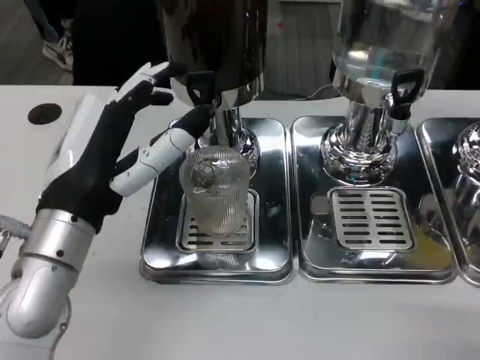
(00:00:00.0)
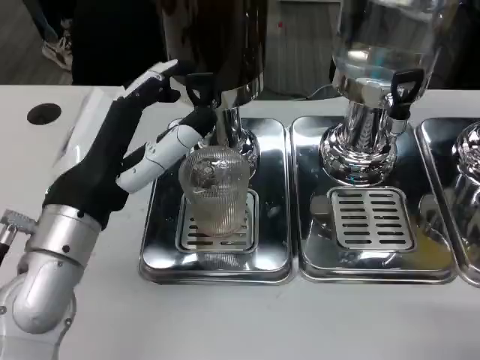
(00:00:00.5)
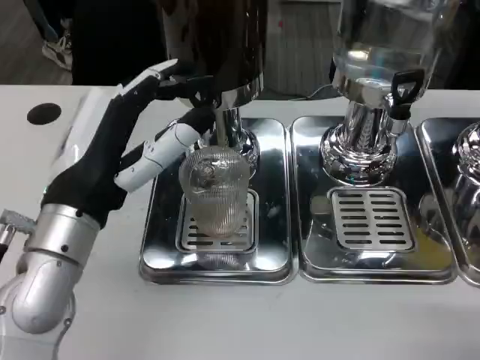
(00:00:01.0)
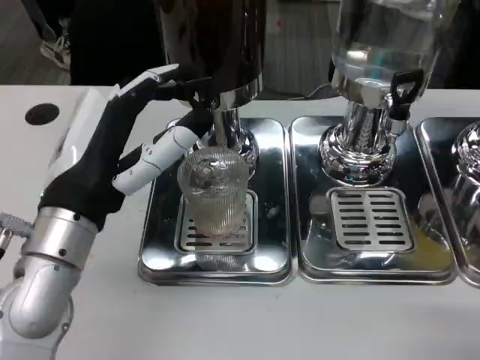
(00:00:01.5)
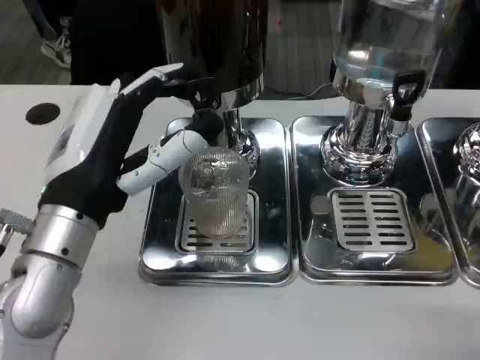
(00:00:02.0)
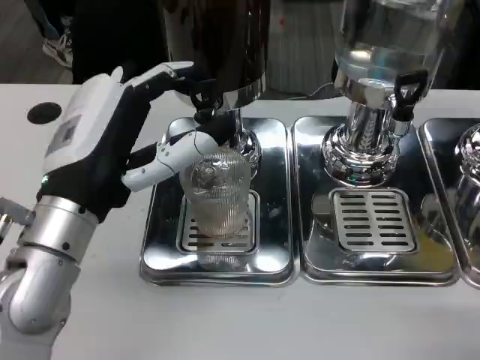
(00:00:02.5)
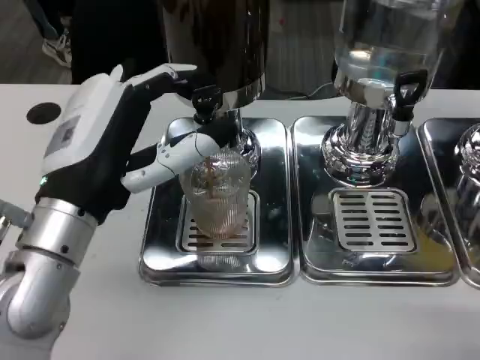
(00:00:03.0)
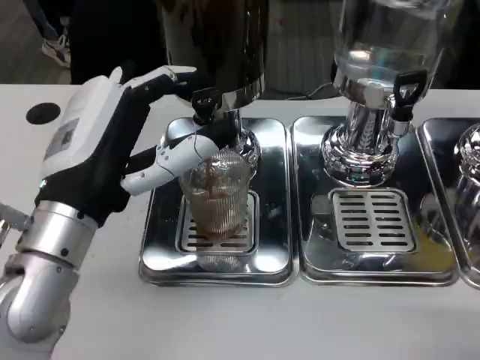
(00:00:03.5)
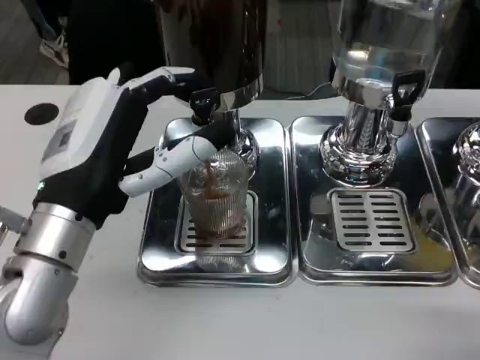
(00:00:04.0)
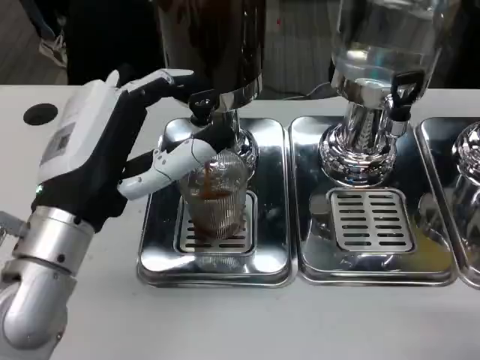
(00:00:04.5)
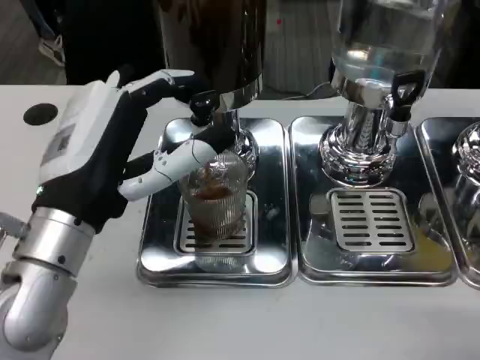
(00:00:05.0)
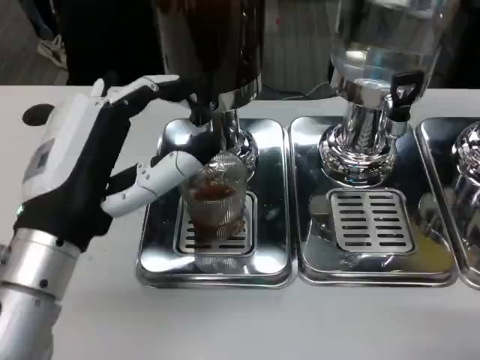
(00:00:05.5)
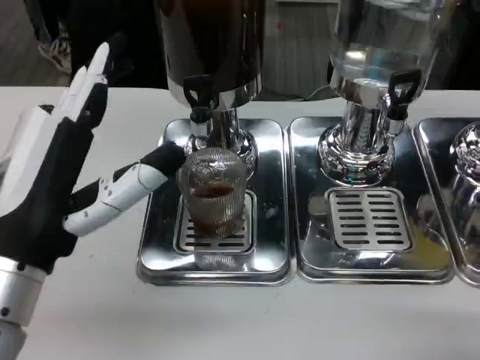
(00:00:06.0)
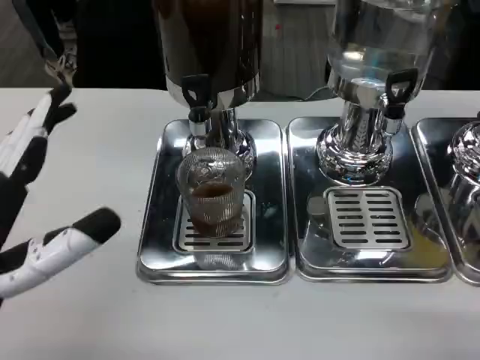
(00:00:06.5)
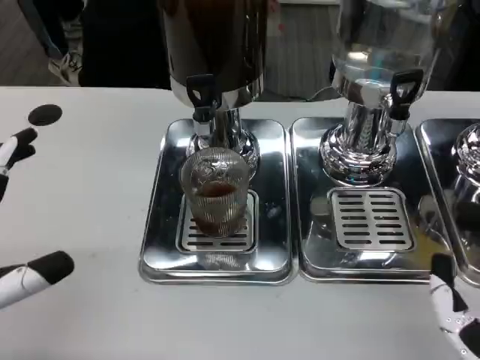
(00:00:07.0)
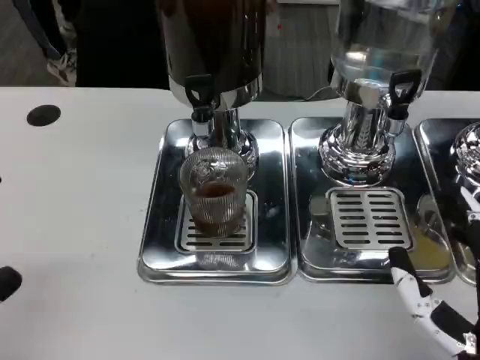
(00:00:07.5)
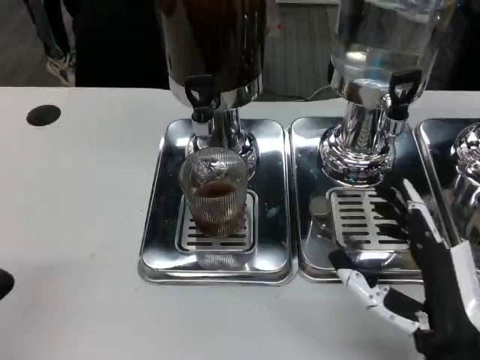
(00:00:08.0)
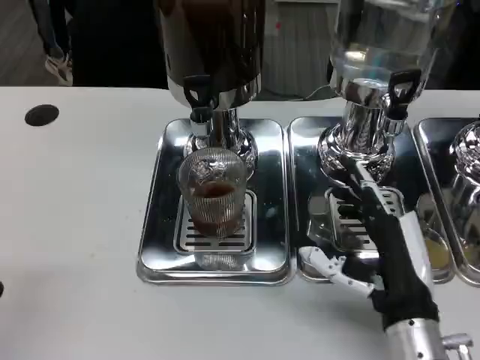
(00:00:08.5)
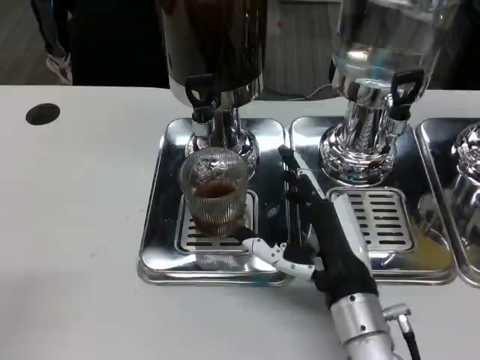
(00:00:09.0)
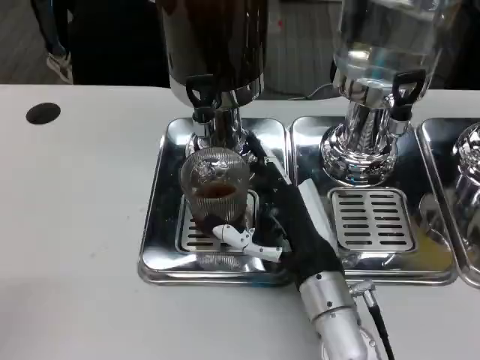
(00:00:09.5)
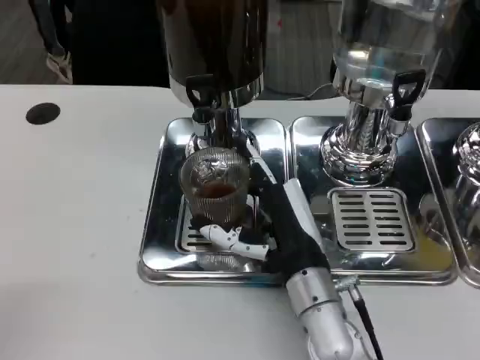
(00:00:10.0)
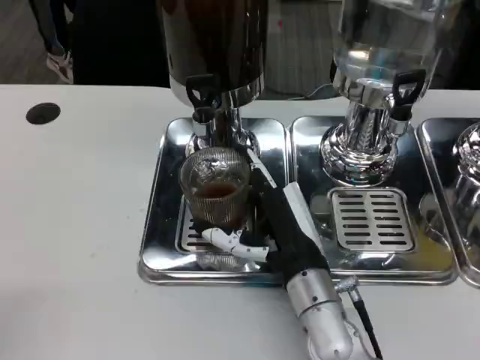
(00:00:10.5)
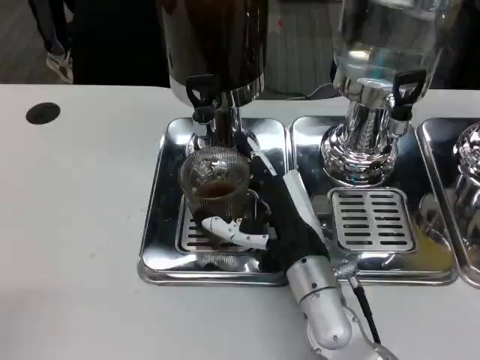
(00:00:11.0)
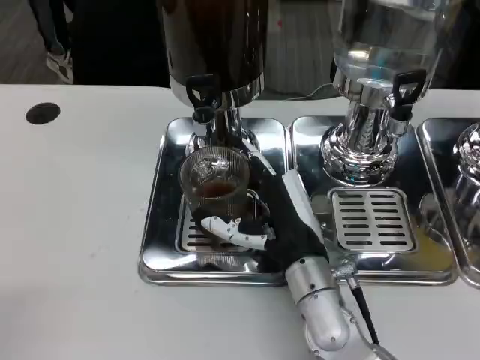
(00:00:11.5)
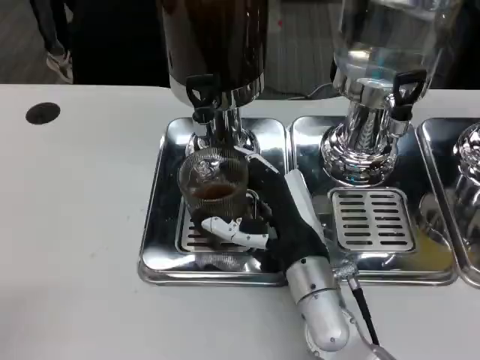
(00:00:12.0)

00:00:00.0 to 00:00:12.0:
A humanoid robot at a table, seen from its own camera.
Task of the whole recording: Grasp the cup under the faucet to collect the drink, then remove the cup.
00:00:00.0 to 00:00:04.0: The hands stay close to where they were, moving slightly.
00:00:04.0 to 00:00:06.0: The left hand changes place by roughly 5 cm.
00:00:06.0 to 00:00:08.0: The left hand is displaced to the left and backward by about 15 cm; the right hand heads forward, covering roughly 10 cm.
00:00:08.0 to 00:00:10.0: The right hand shifts roughly 15 cm forward and to the left.
00:00:10.0 to 00:00:12.0: Both hands stay about where they are.

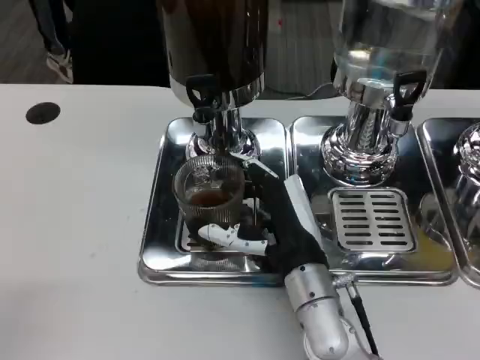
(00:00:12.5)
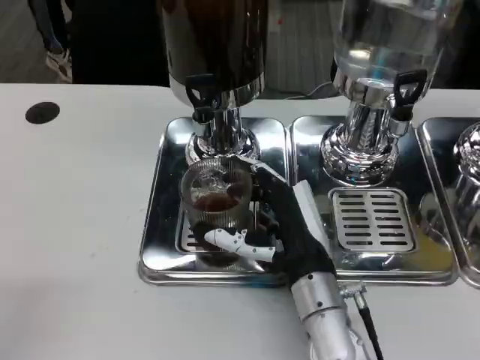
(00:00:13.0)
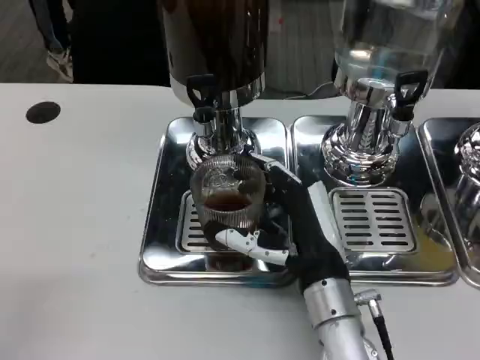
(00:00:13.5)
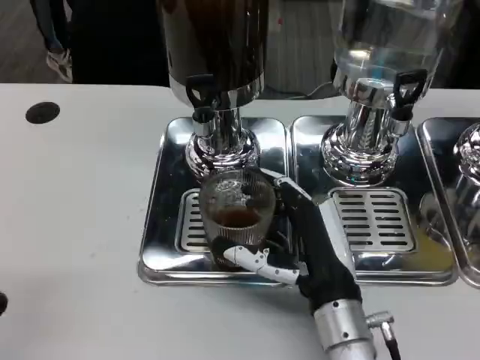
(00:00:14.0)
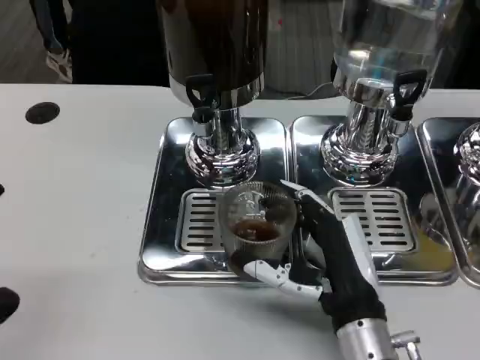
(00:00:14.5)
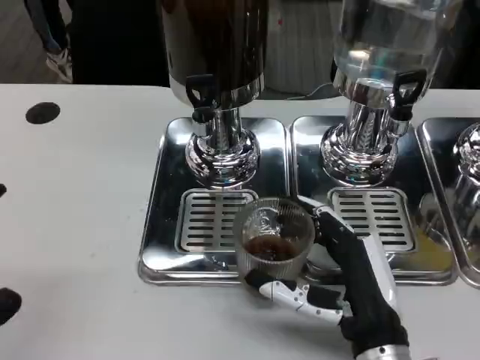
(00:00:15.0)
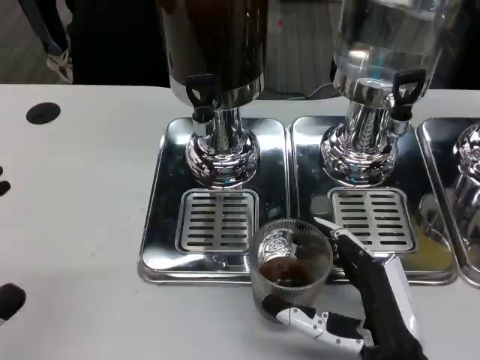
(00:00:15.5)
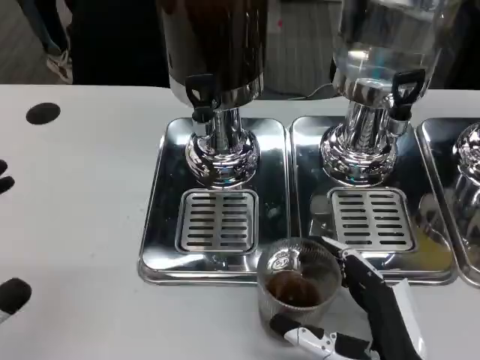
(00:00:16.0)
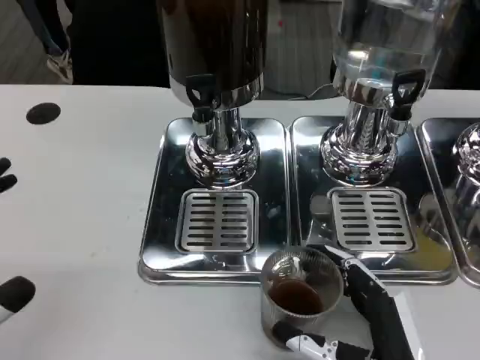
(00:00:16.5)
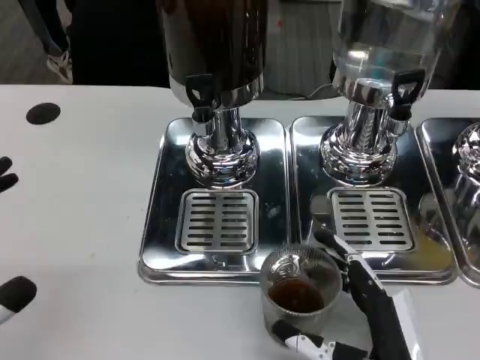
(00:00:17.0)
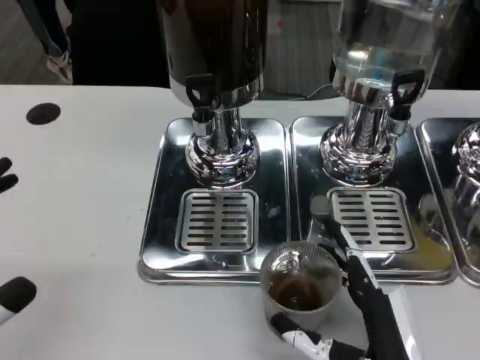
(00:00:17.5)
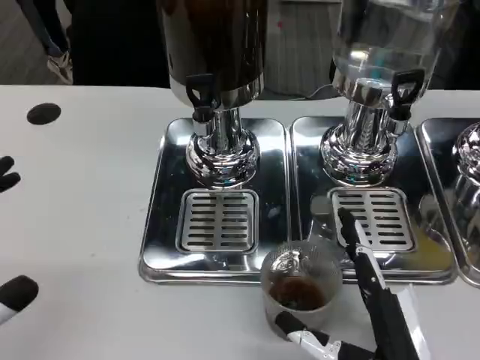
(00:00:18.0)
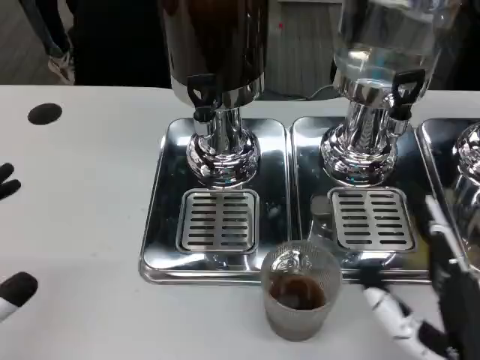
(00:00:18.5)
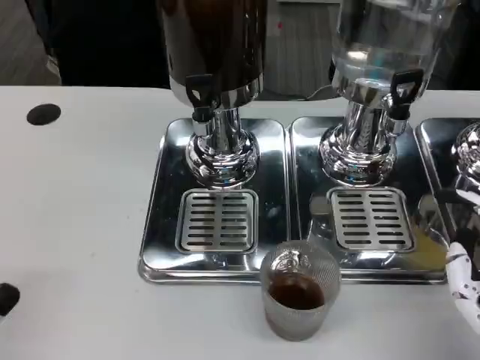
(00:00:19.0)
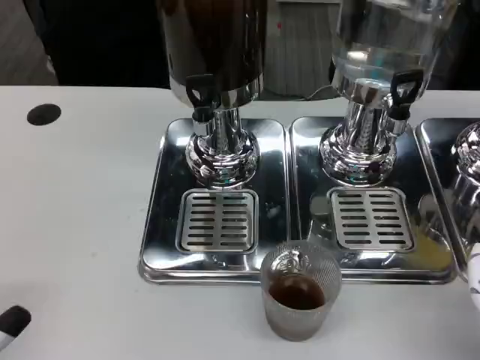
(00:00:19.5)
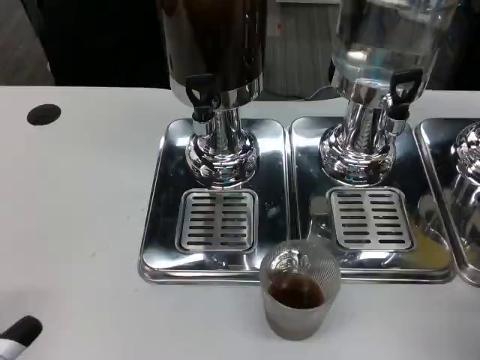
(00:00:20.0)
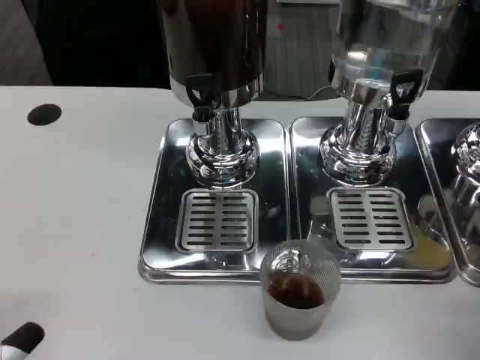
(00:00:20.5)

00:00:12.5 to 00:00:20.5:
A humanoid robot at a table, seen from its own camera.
Task of the whole recording: Grasp the cup under the faucet to collect the drink, then remove the cup.
00:00:12.5 to 00:00:14.5: The right hand is displaced backward by approximately 5 cm.
00:00:14.5 to 00:00:16.5: The right hand travels backward by roughly 5 cm.
00:00:16.5 to 00:00:18.5: The right hand shifts by approximately 5 cm.
00:00:18.5 to 00:00:20.5: The right hand moves approximately 5 cm; the left hand ends up about 5 cm from where it was.

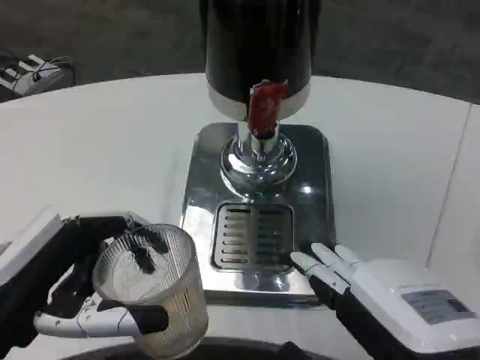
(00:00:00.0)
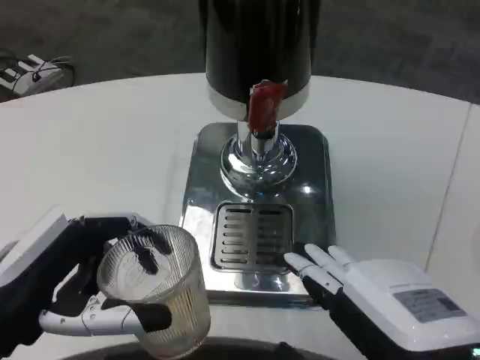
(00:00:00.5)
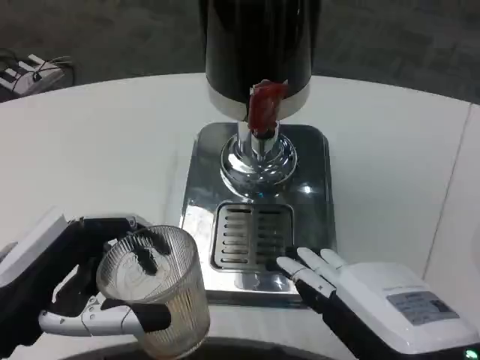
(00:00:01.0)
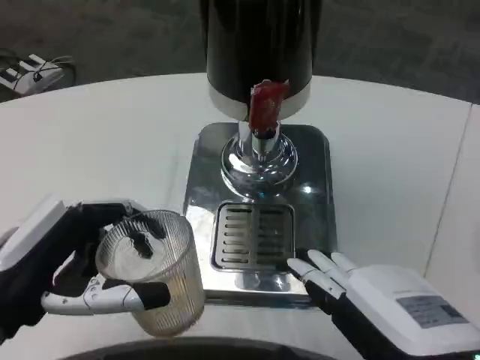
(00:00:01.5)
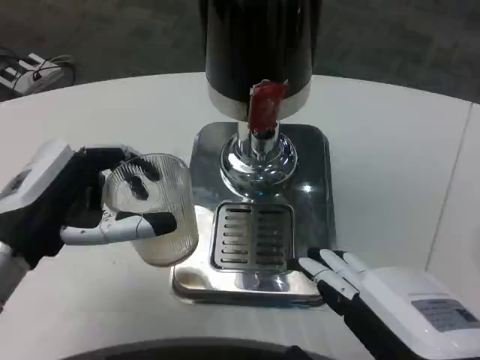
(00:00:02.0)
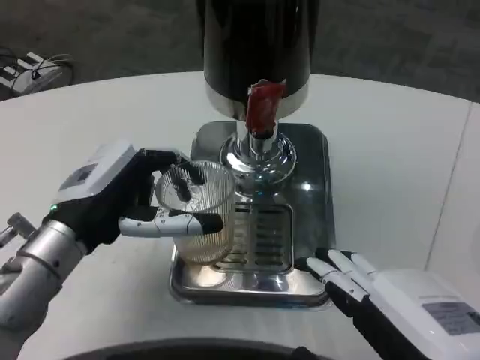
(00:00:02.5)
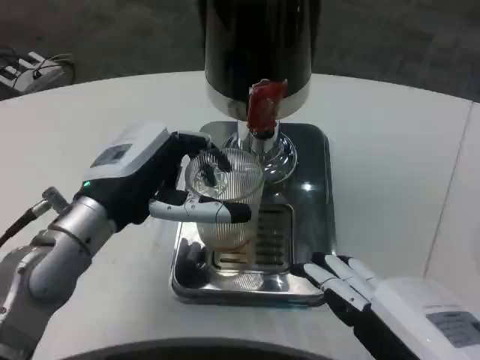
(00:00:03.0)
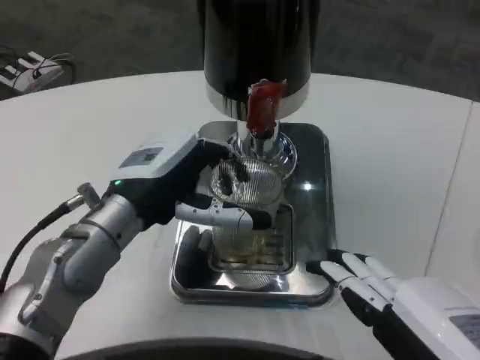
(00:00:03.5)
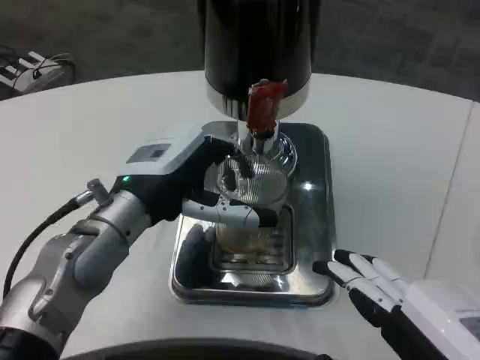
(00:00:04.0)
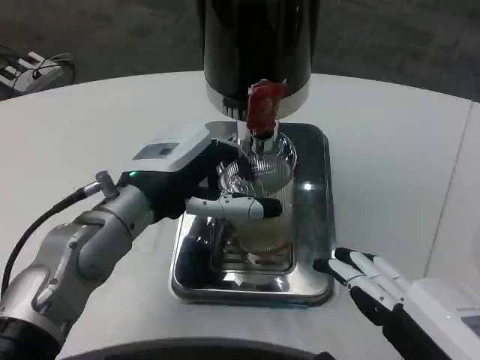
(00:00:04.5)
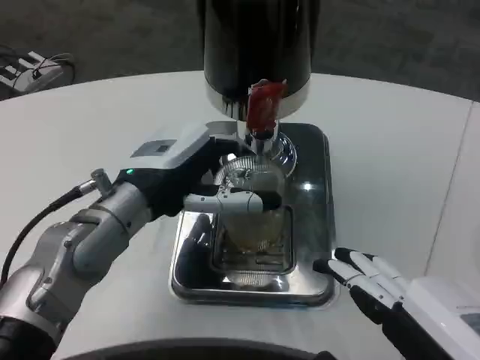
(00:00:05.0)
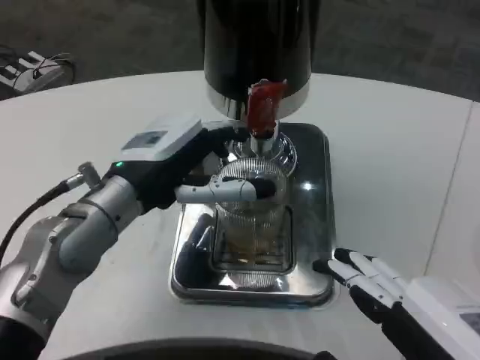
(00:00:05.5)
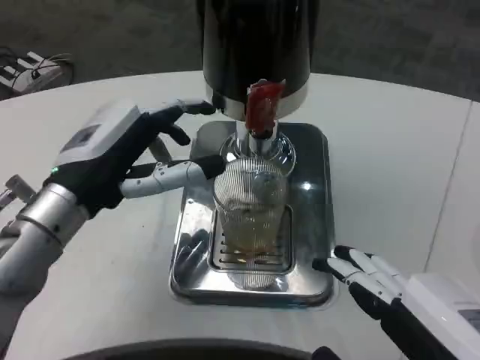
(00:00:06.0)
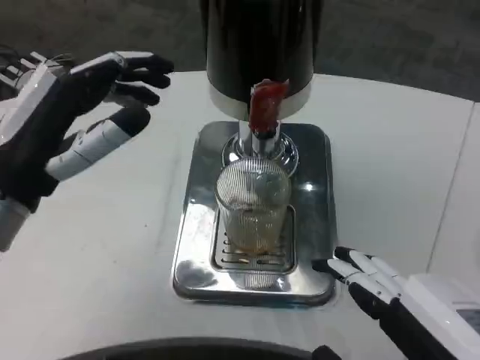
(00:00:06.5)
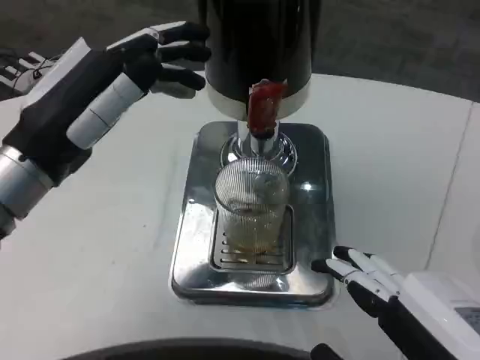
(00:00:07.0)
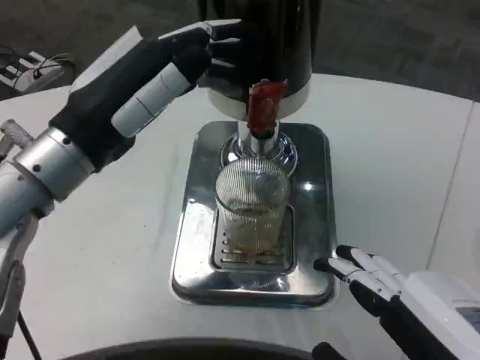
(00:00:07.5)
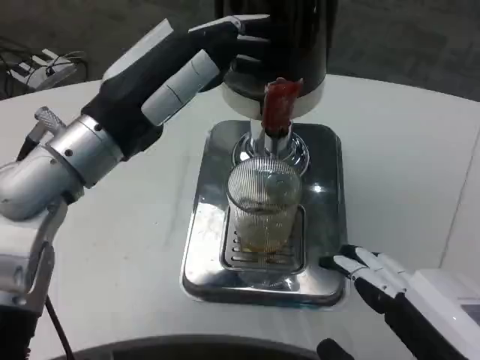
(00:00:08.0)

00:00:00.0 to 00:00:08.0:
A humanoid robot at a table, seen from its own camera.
Task of the whole recording: Grasp the cup under the faucet to collect the drink, then remove the cup.
00:00:00.0 to 00:00:02.0: The left hand is displaced forward by approximately 5 cm.
00:00:02.0 to 00:00:04.0: The left hand heads to the right and forward, covering about 10 cm.
00:00:04.0 to 00:00:06.0: The left hand shifts by roughly 5 cm.
00:00:06.0 to 00:00:08.0: The left hand is displaced upward by approximately 5 cm.
